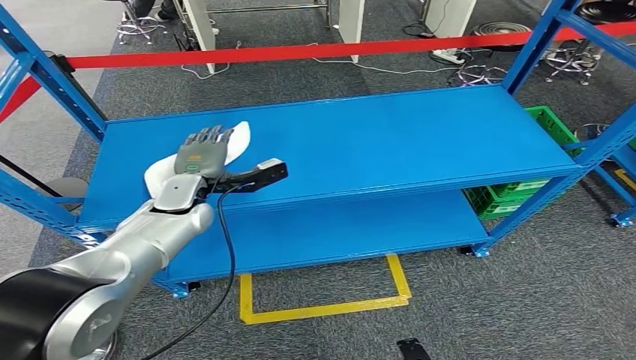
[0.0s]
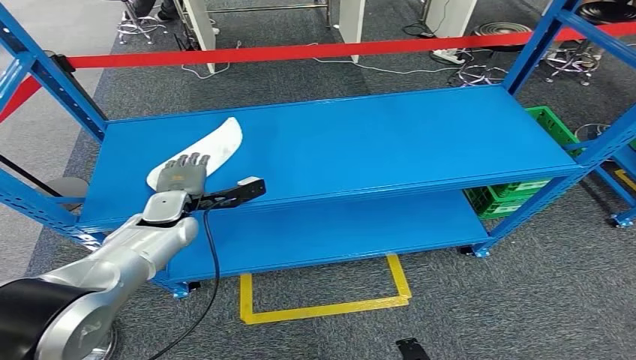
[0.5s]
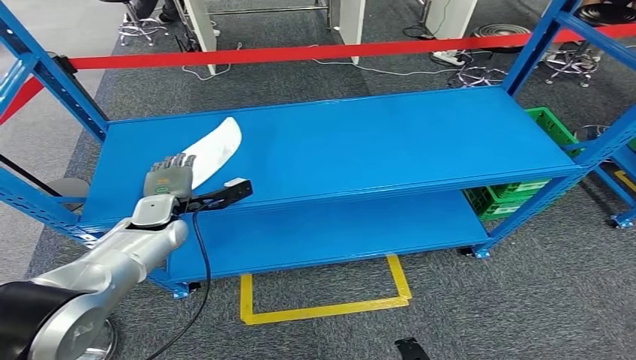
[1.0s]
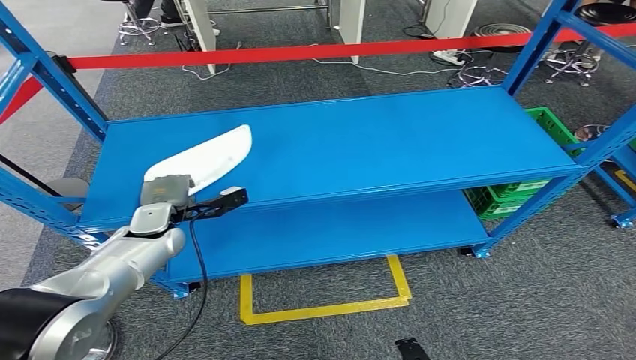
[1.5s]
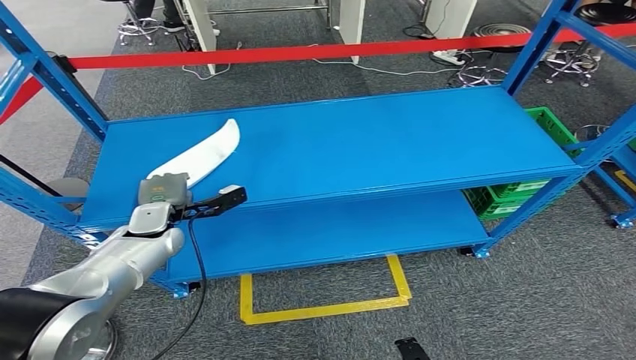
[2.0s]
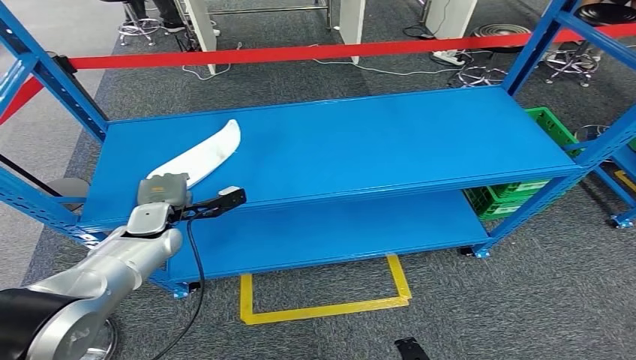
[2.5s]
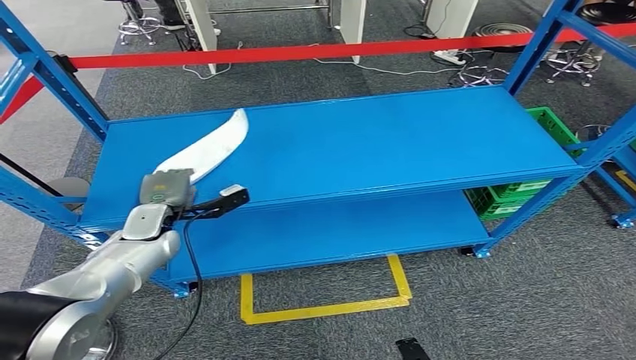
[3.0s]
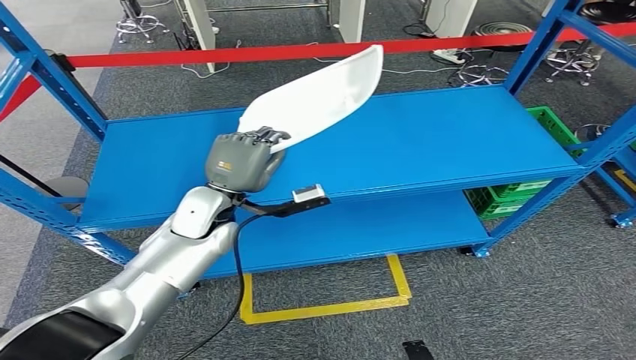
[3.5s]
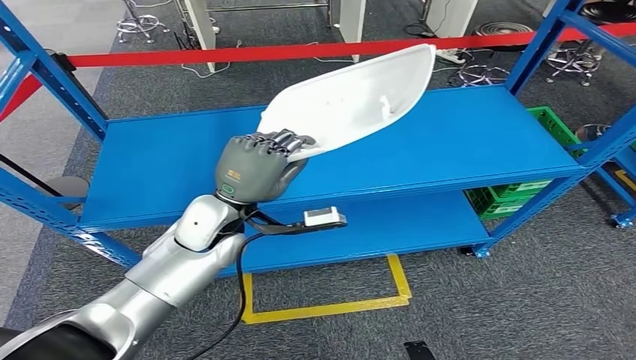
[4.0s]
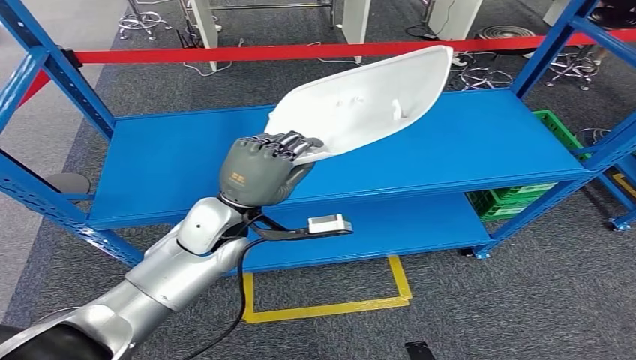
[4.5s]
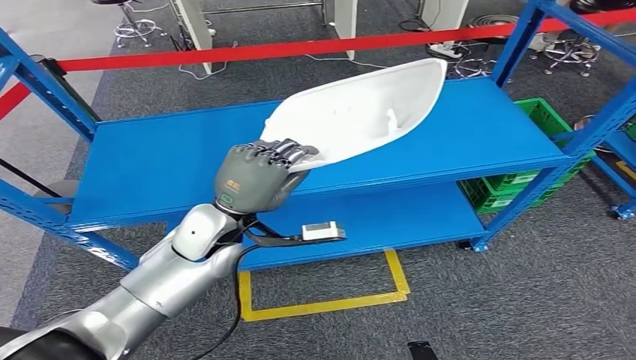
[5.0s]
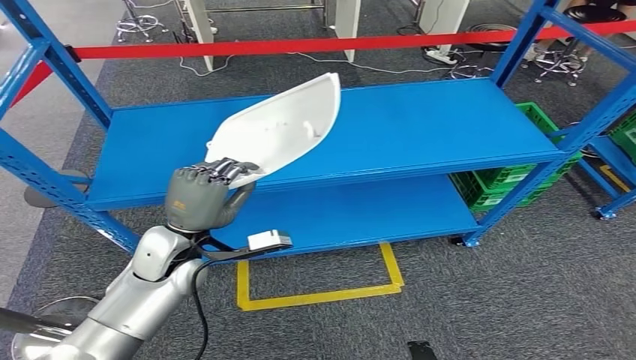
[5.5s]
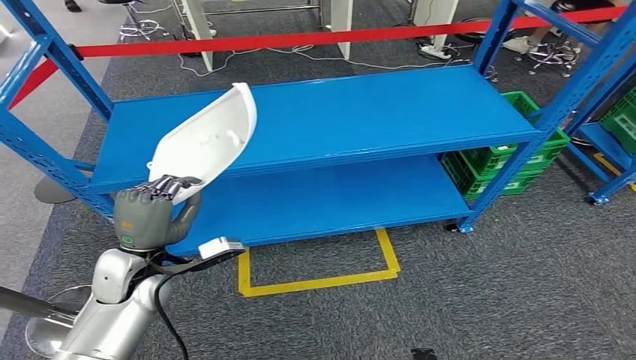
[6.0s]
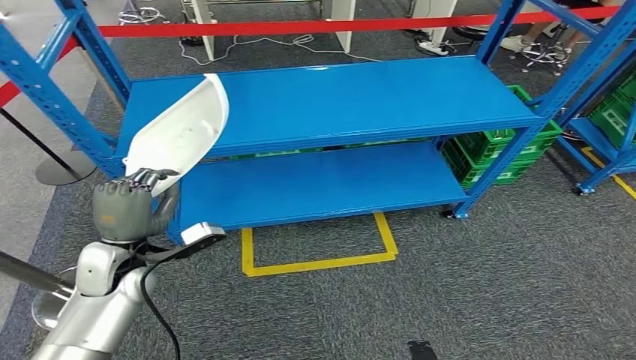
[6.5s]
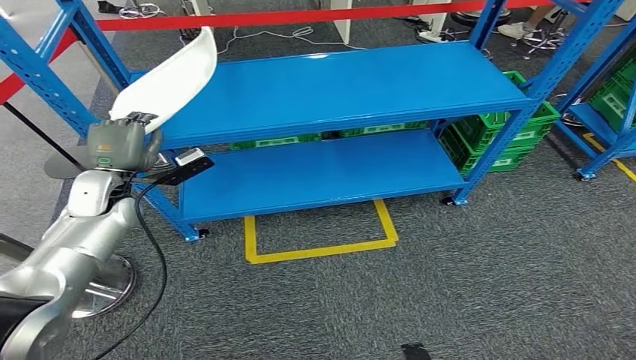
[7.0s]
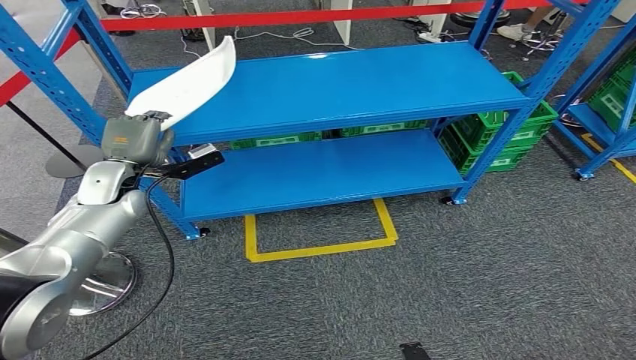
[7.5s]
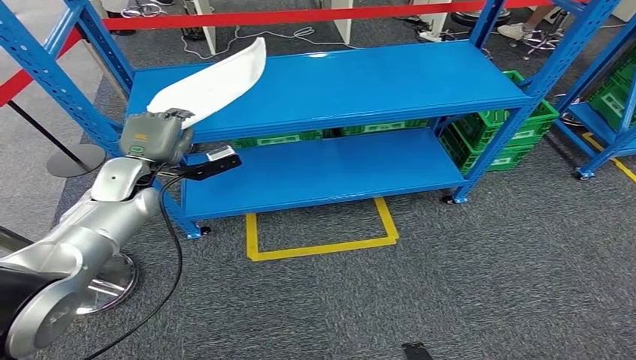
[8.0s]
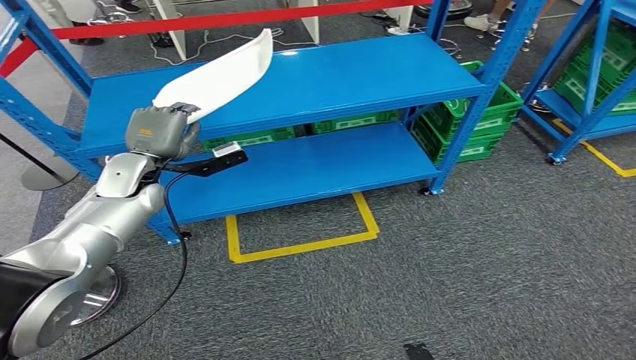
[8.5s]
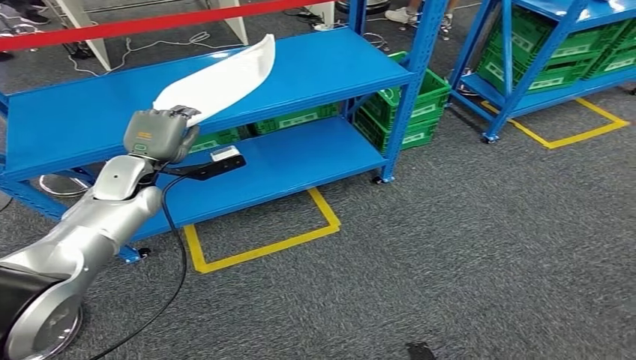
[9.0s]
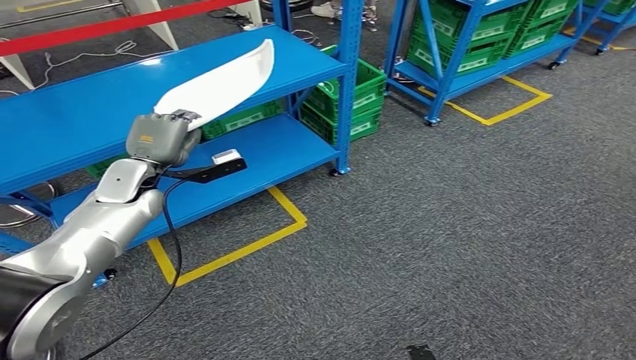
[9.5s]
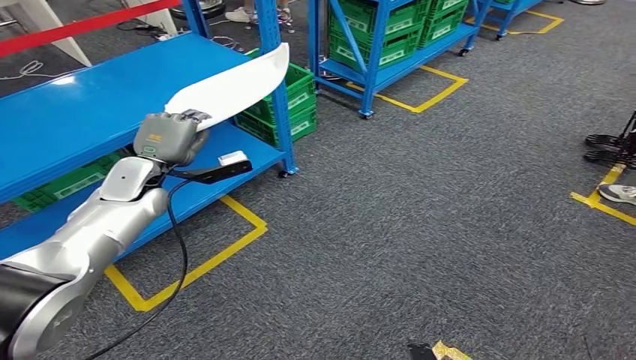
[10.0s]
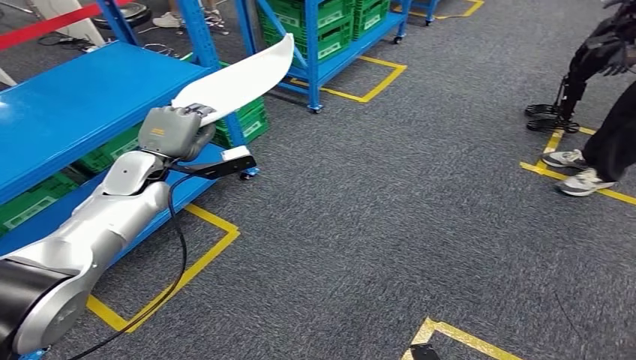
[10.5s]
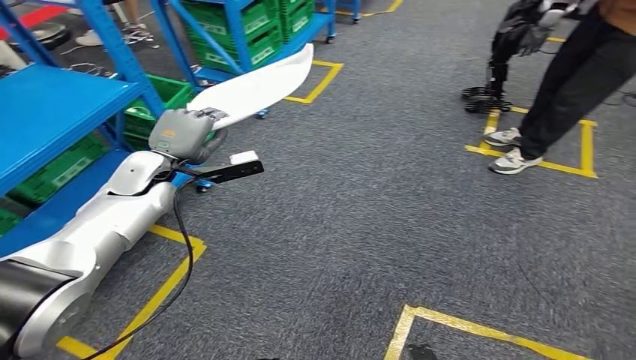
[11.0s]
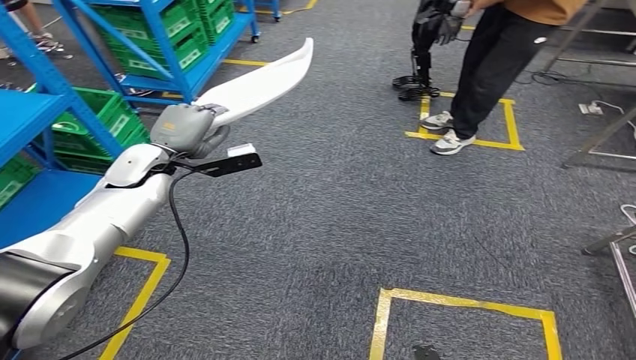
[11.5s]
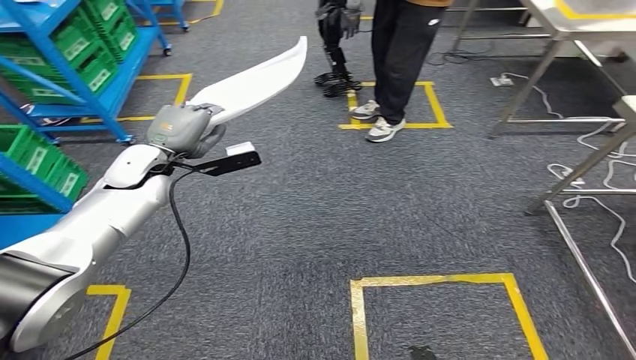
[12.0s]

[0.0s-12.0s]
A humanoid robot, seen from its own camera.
Step, 0.0s to 4.0s: Pick up the small component from the shelf.
0.0s to 2.0s: The left hand goes approximately 10 cm downward and to the left.

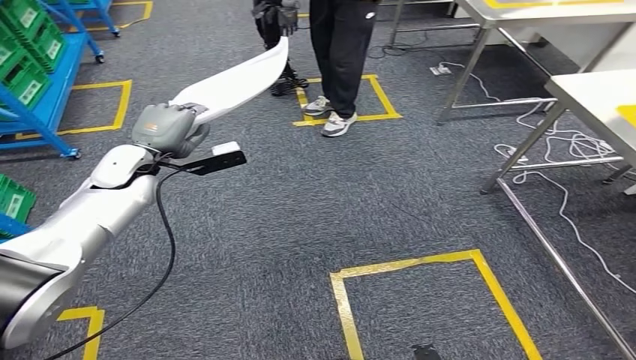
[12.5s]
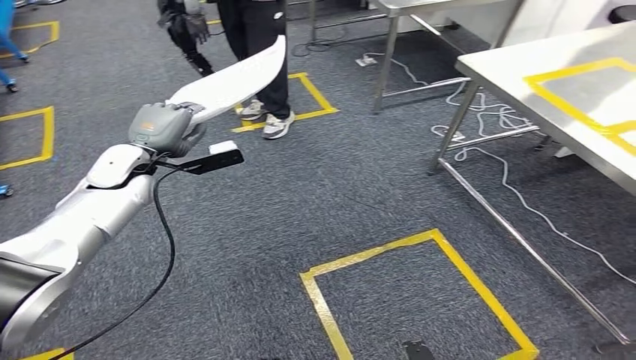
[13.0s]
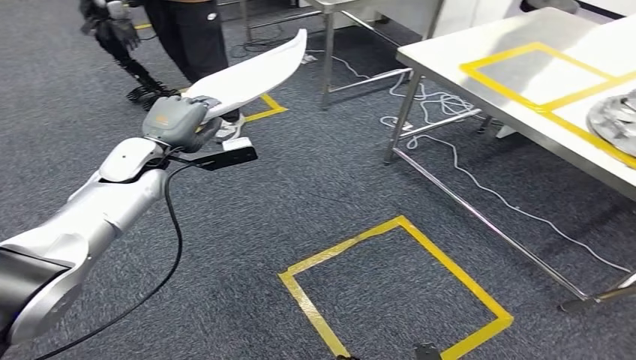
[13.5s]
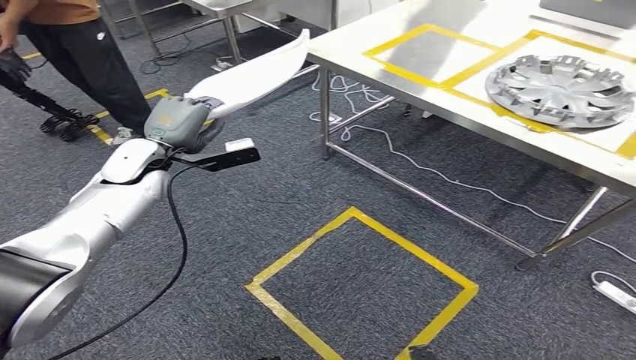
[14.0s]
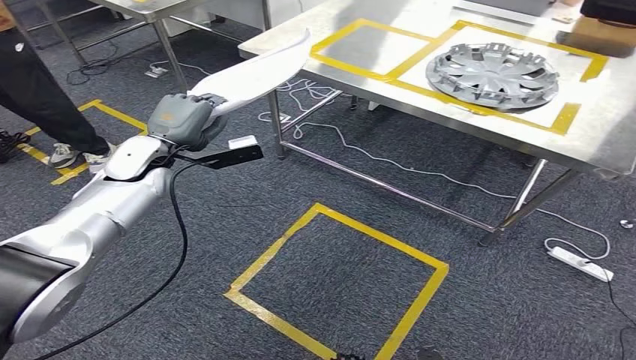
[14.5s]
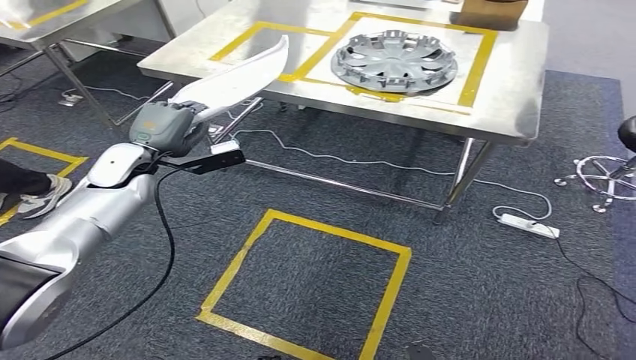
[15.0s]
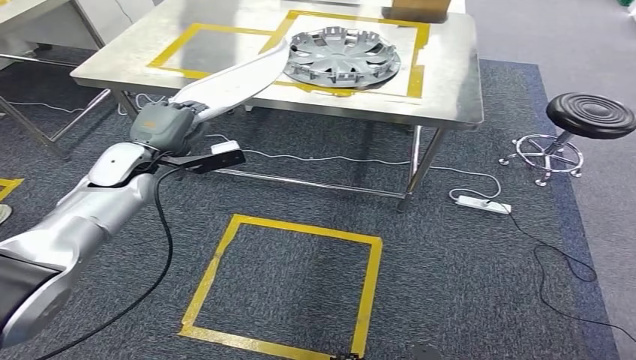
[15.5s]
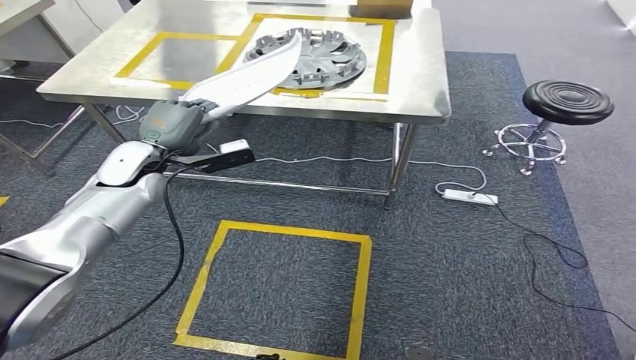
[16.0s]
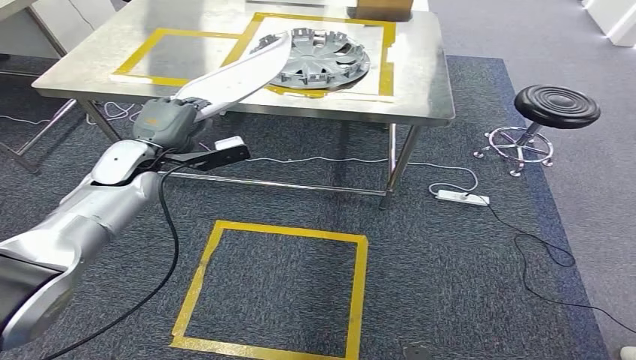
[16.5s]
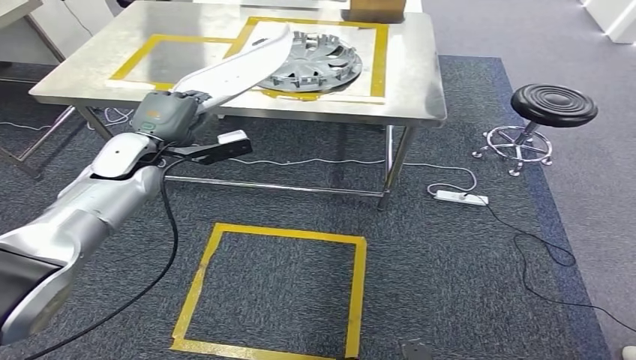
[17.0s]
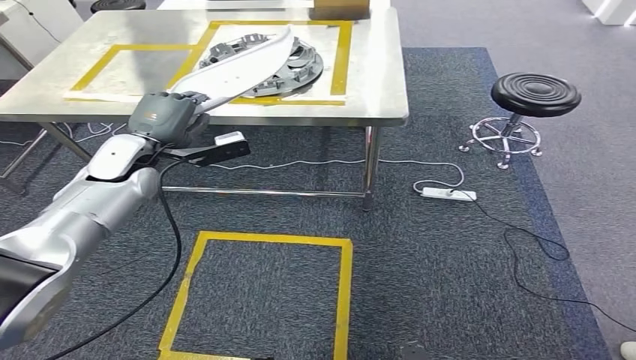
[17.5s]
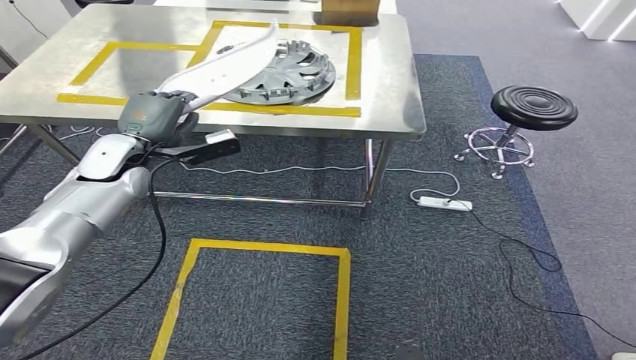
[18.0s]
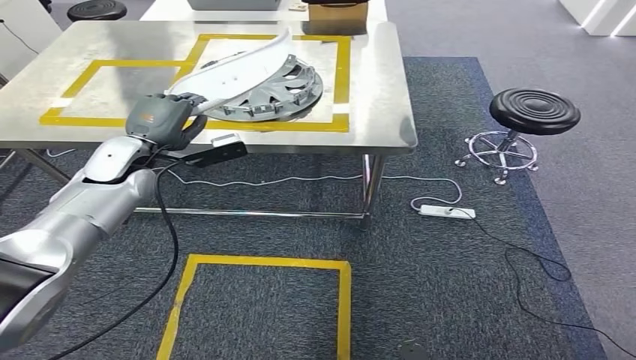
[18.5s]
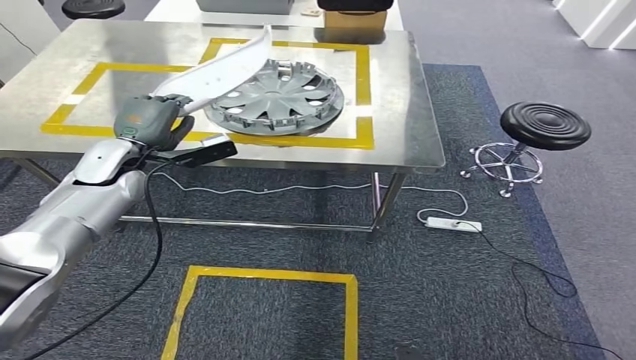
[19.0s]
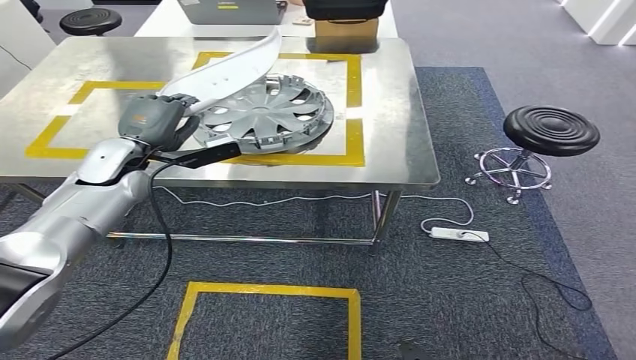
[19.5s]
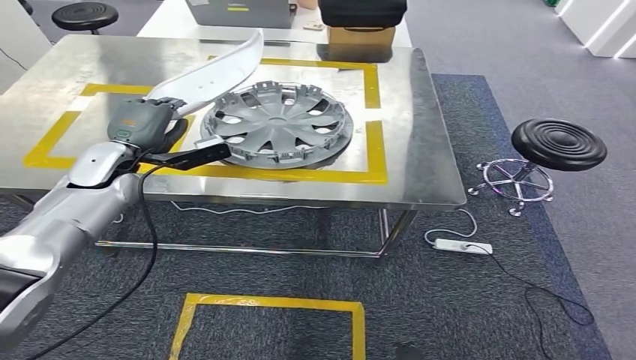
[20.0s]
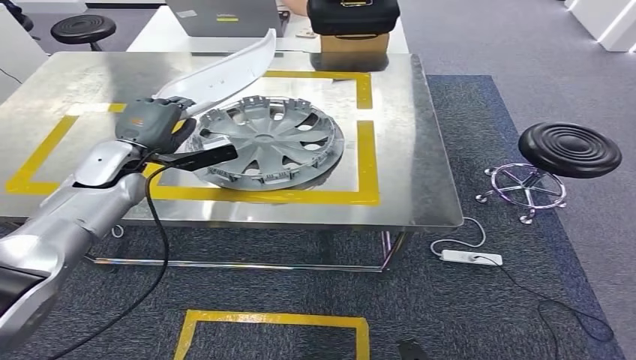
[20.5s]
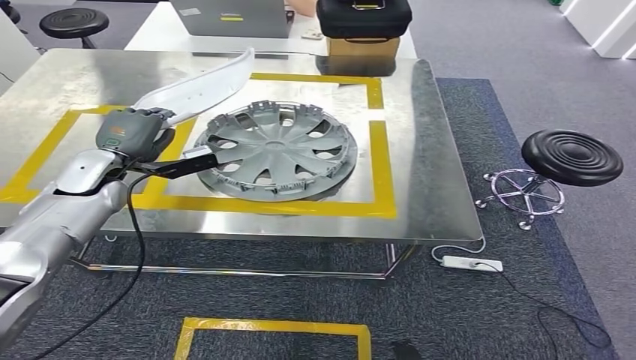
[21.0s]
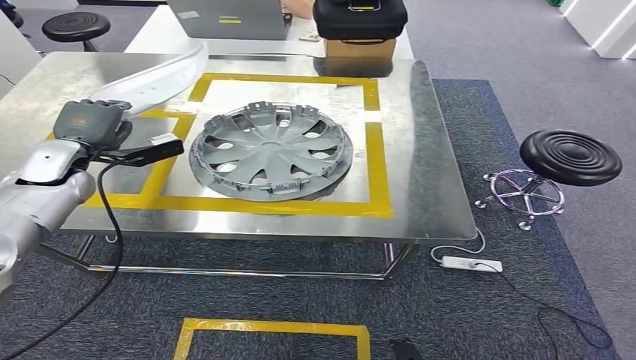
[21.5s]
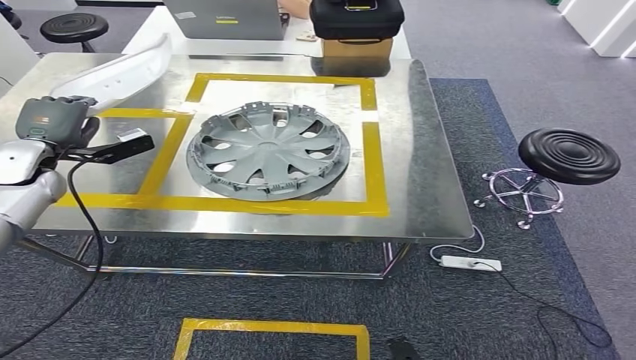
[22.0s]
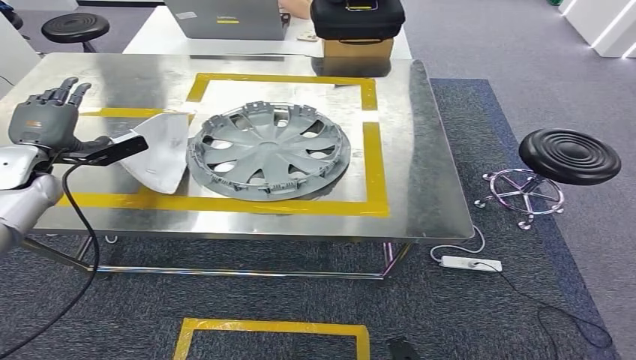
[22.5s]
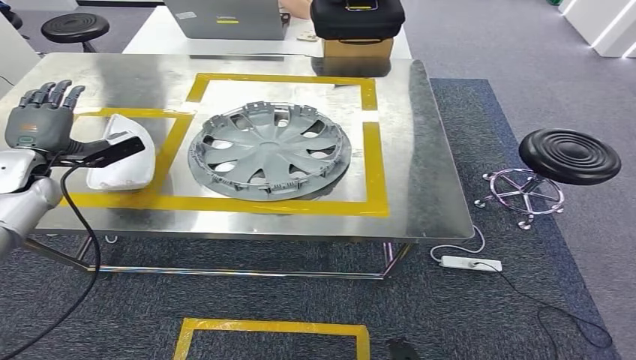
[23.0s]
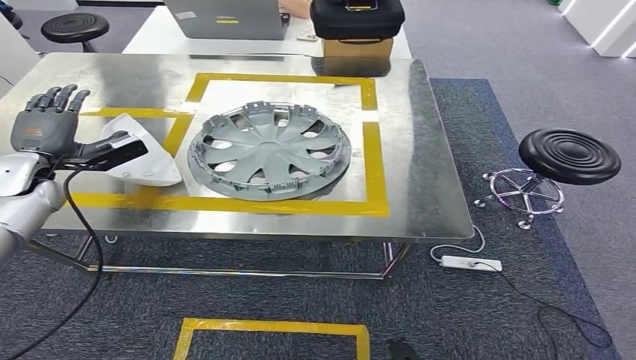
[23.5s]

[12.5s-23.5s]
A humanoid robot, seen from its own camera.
Step, 12.5s to 21.5s: Move the small component to the workbench.
21.5s to 23.5s: The left hand is displaced to the left by roughly 5 cm.
